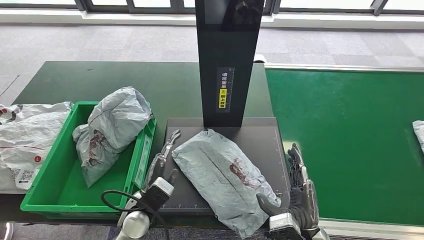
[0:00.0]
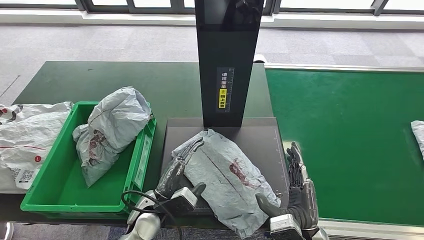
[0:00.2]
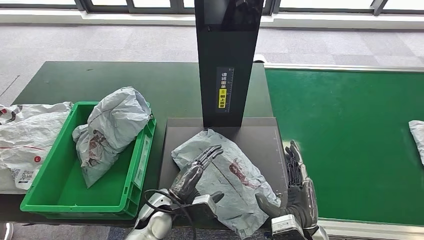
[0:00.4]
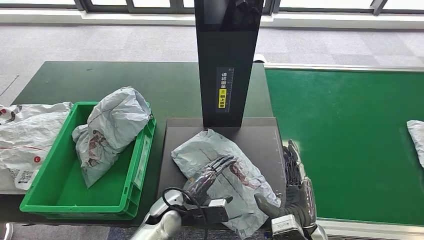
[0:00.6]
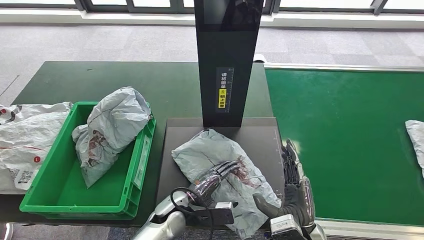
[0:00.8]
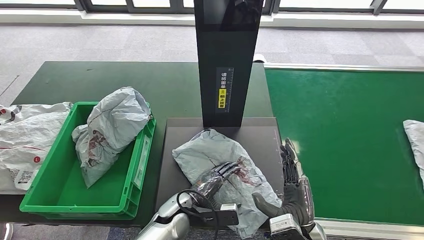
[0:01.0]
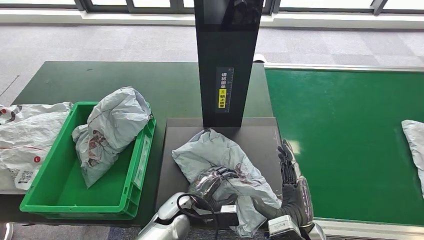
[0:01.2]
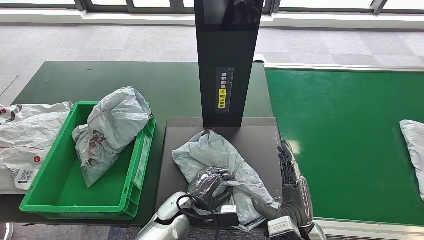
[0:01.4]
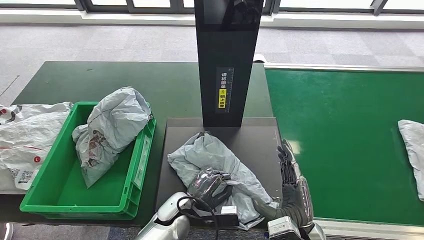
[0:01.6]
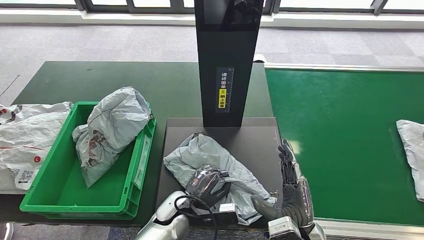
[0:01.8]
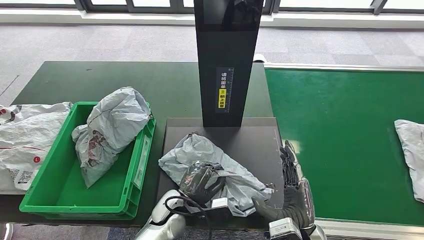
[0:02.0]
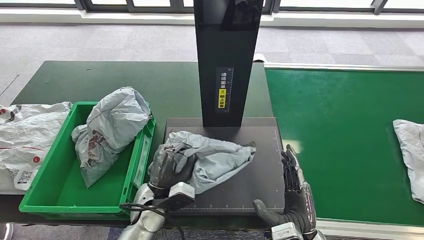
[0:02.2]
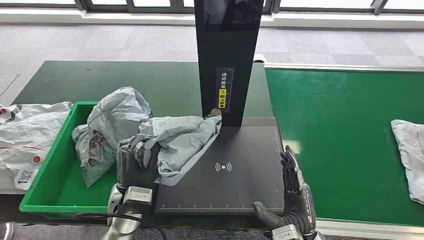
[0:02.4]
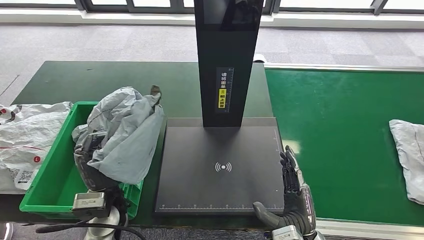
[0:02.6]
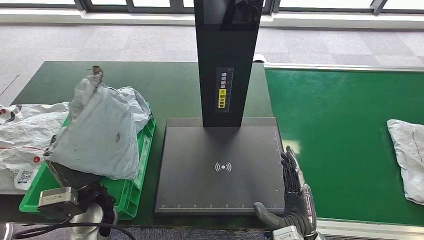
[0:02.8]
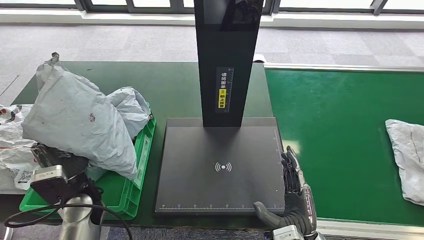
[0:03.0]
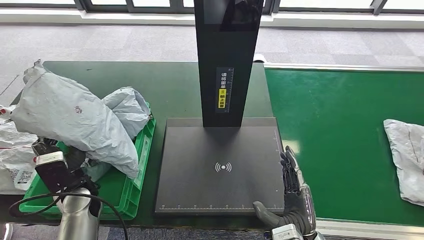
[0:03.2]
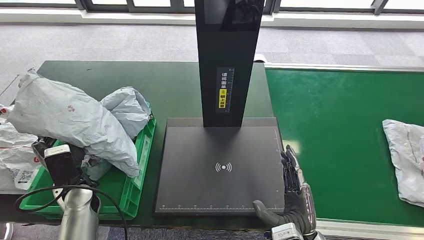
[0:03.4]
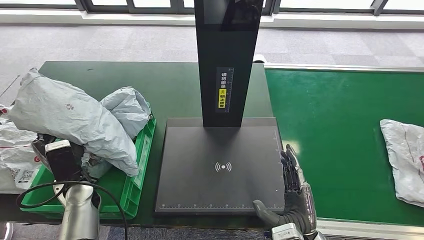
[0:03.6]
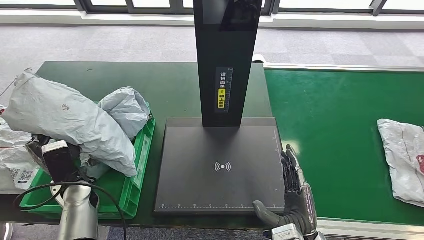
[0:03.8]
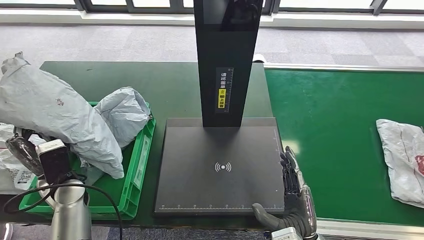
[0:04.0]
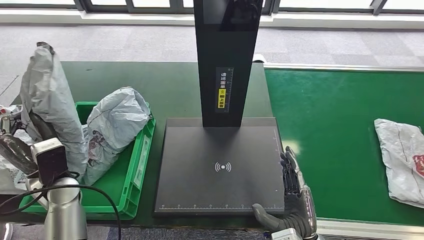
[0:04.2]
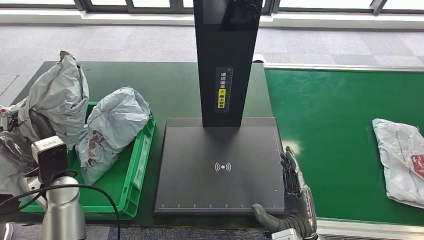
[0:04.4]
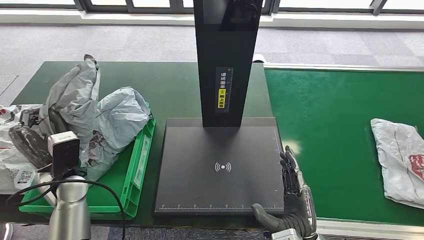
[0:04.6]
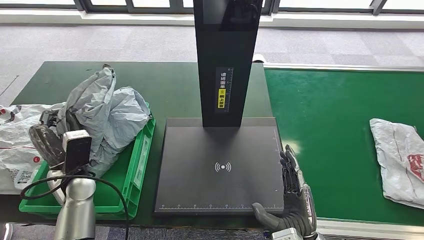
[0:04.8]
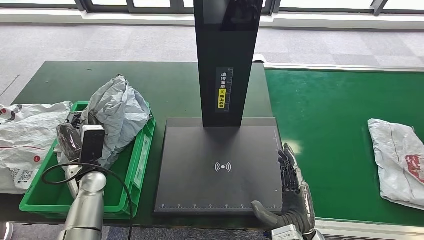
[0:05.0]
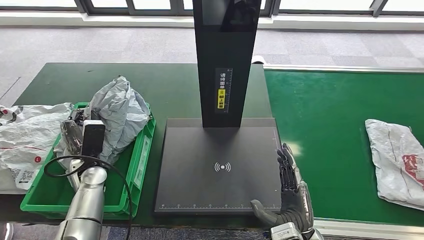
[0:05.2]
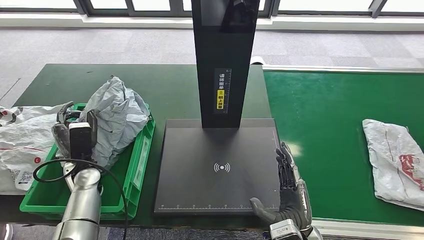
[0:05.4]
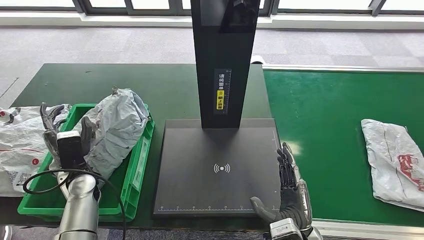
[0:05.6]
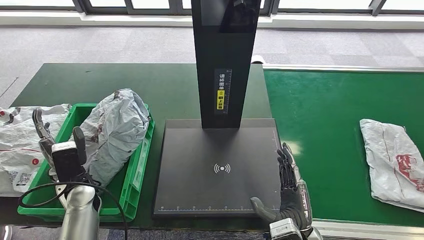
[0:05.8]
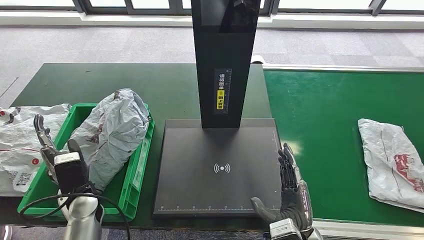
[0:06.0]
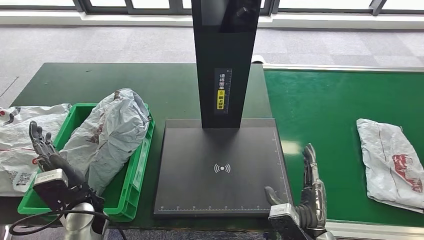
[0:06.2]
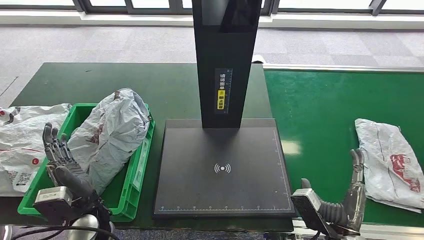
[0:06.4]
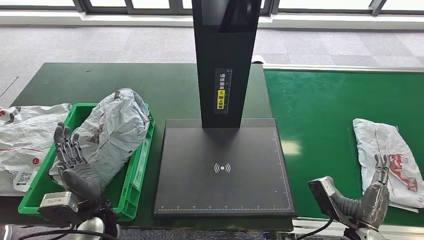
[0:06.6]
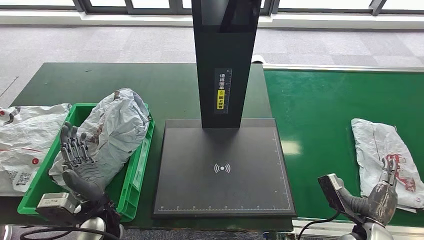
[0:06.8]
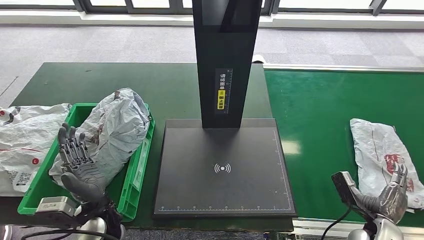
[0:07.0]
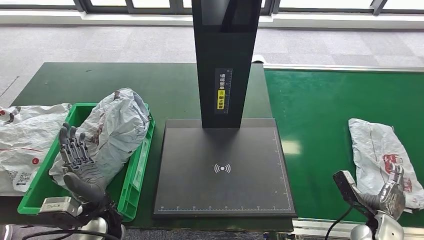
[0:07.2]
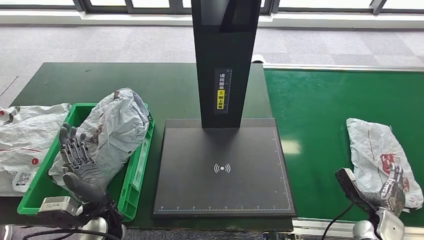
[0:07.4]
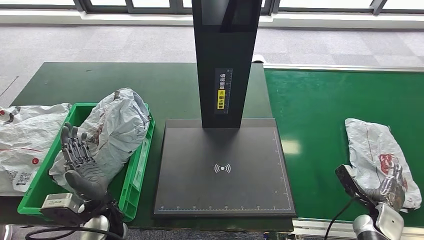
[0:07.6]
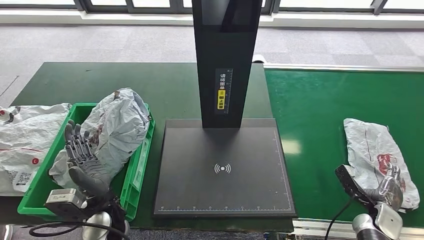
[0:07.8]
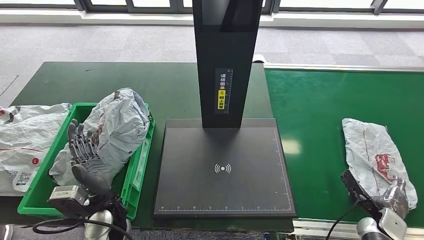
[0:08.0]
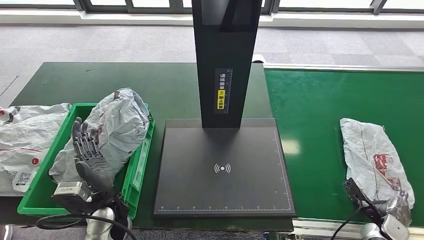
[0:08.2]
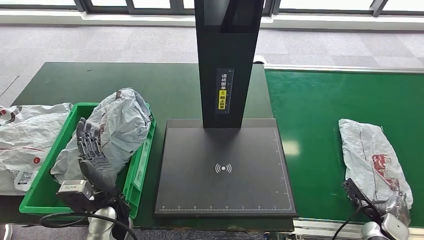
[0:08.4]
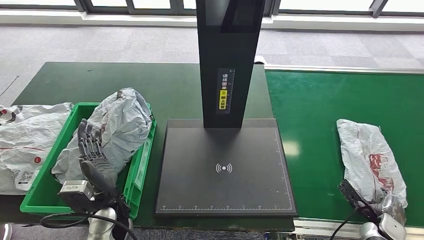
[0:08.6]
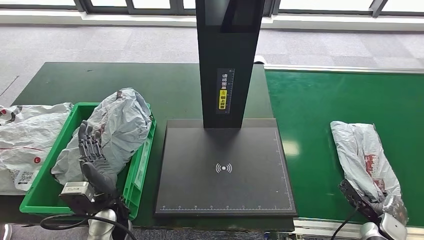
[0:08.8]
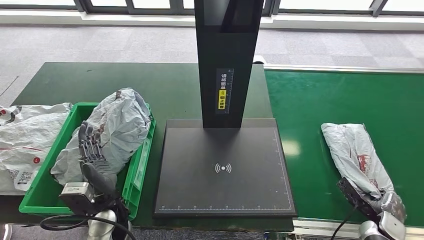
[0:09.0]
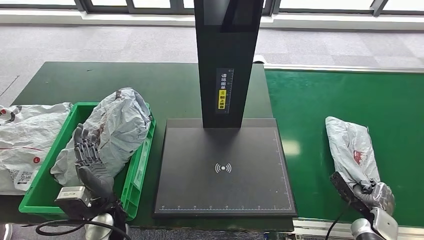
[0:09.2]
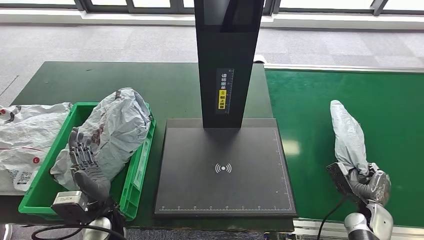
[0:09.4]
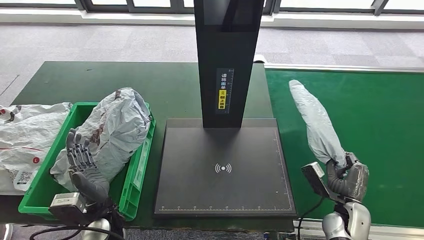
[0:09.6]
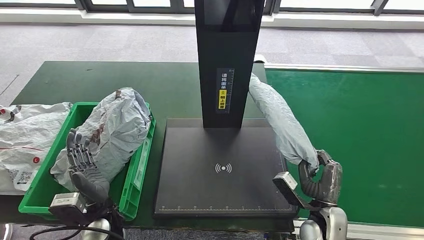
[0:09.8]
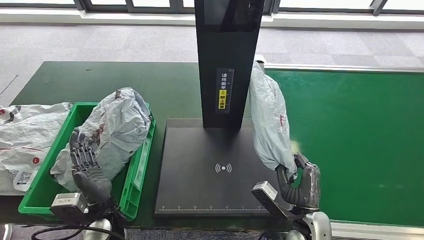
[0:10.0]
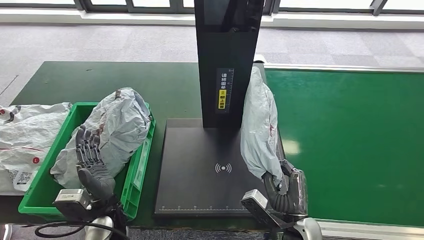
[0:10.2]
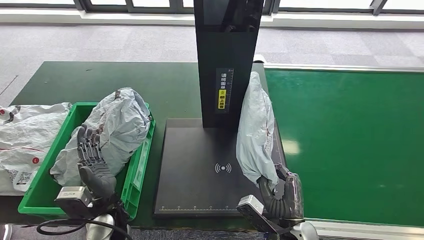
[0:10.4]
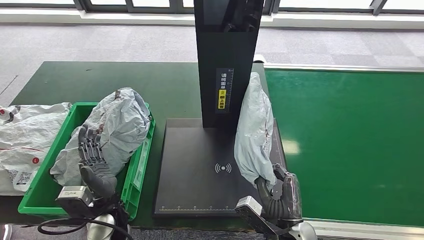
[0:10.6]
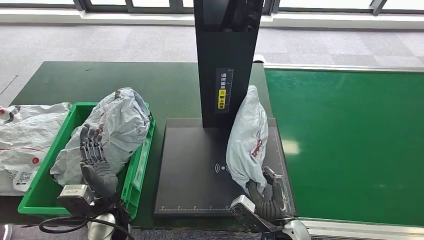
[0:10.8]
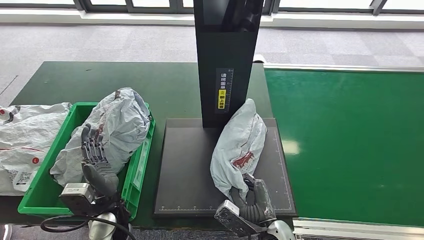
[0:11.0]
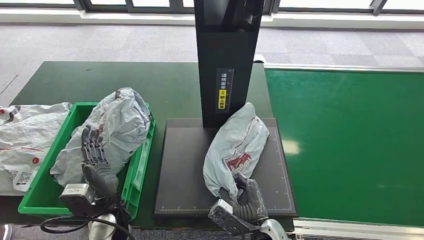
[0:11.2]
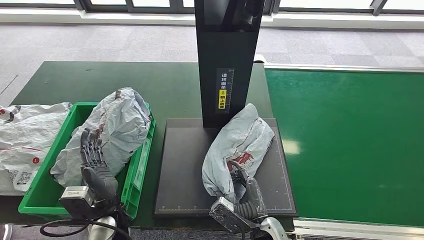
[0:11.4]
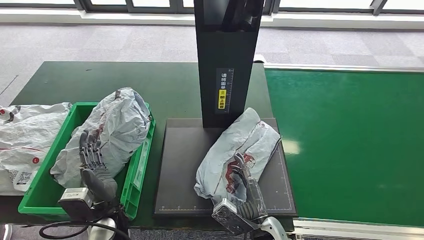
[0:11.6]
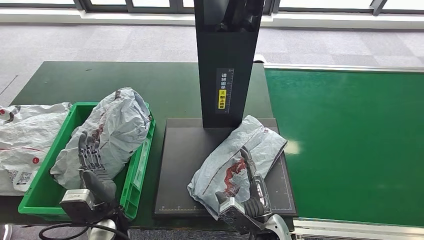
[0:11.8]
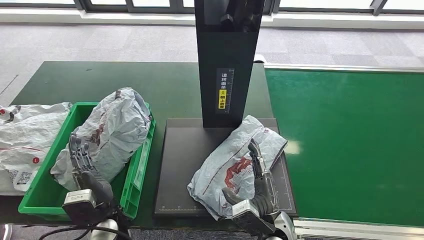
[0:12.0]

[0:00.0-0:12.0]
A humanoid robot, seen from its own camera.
Step, 0:00.6 to 0:02.4: Pick up the parcel from the inbound machine.
Step, 0:02.6 to 0:06.4: Place the parcel into the delivery box.
Step, 0:06.6 to 0:09.8: Pick up the parcel from the conveyor belt.
0:00.0 to 0:01.6: The left hand moves to the right, about 10 cm.
0:03.0 to 0:04.4: The left hand travels to the left by roughly 5 cm.
0:06.0 to 0:07.6: The left hand travels to the right by some 5 cm. The right hand goes some 25 cm to the right and downward.

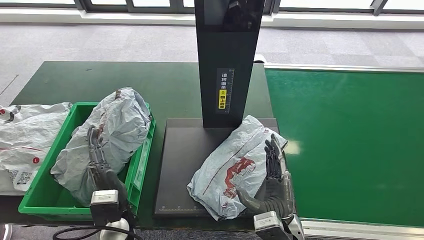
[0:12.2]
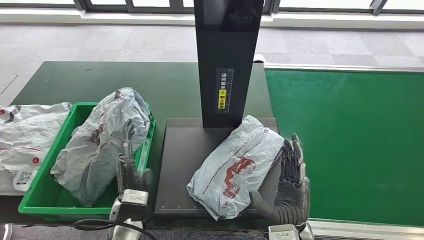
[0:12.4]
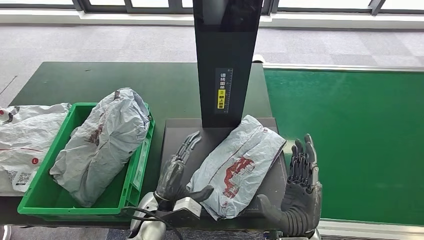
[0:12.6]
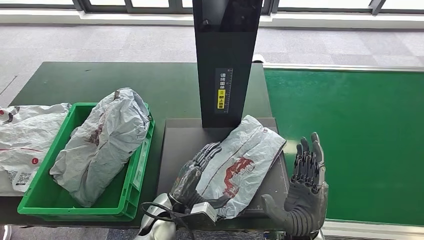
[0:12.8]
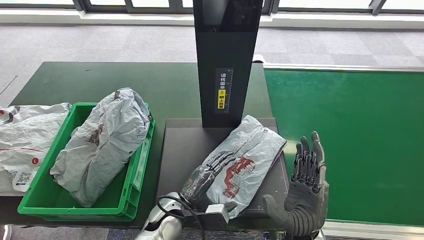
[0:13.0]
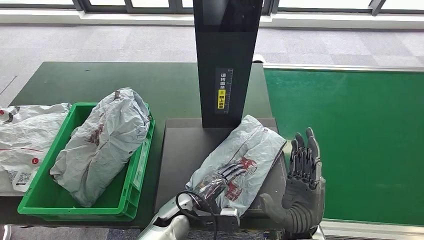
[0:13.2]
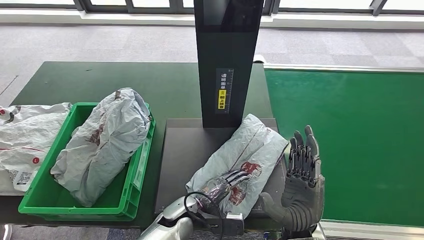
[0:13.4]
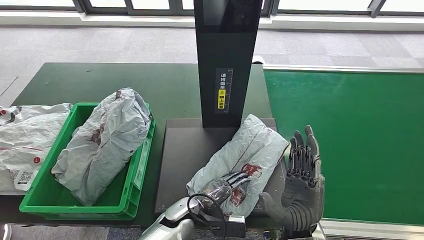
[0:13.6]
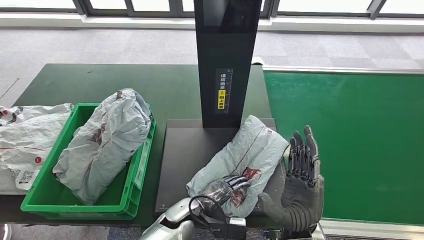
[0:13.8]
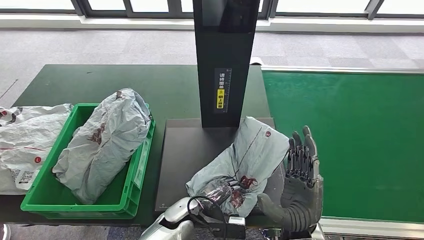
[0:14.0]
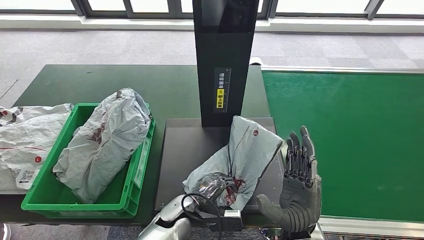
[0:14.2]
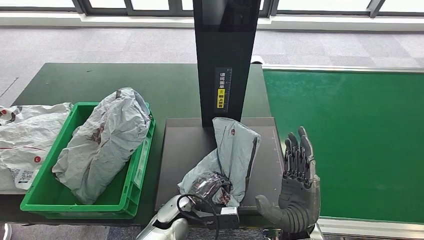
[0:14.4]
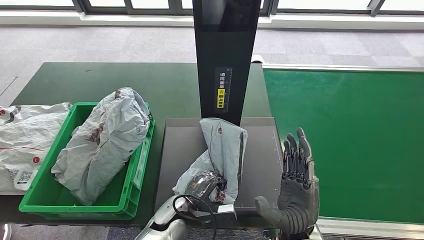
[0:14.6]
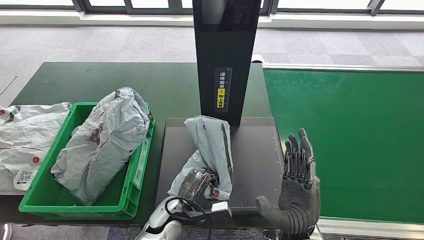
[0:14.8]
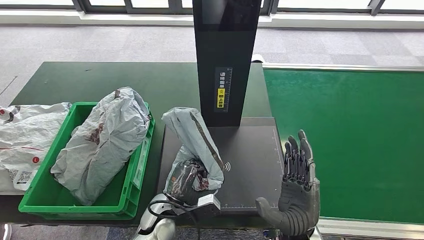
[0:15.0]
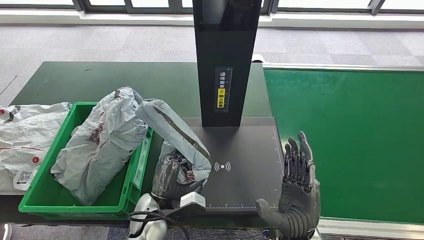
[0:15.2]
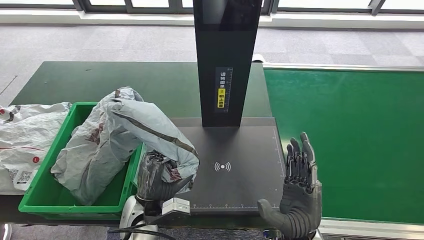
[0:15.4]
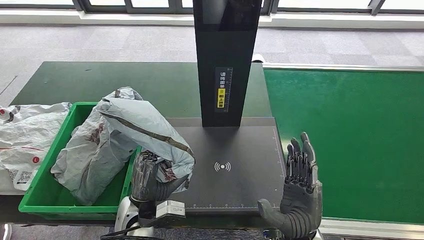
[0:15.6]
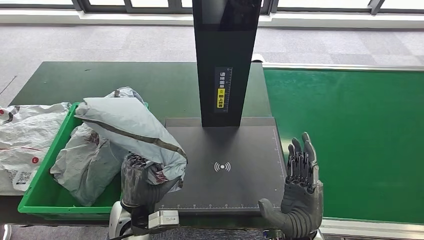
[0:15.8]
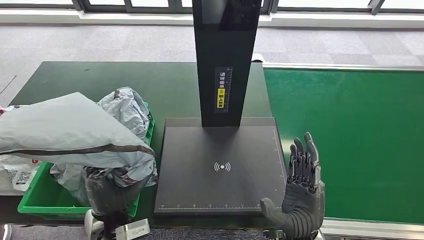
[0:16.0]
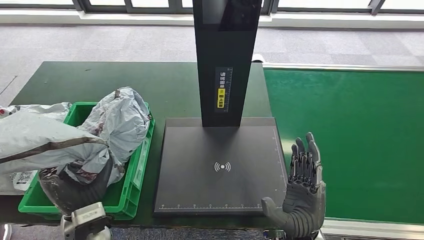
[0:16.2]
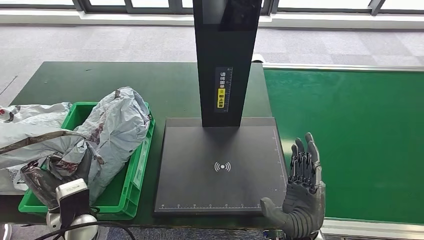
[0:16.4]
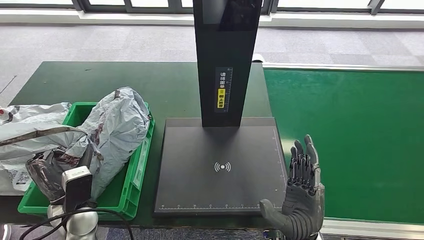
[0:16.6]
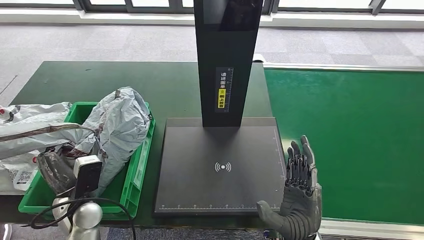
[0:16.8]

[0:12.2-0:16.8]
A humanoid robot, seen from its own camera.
Step, 0:14.2 to 0:15.6: Pick up the parcel from the inbound machine.
0:15.2 to 0:16.8: The left hand is displaced to the left by roughly 15 cm.
